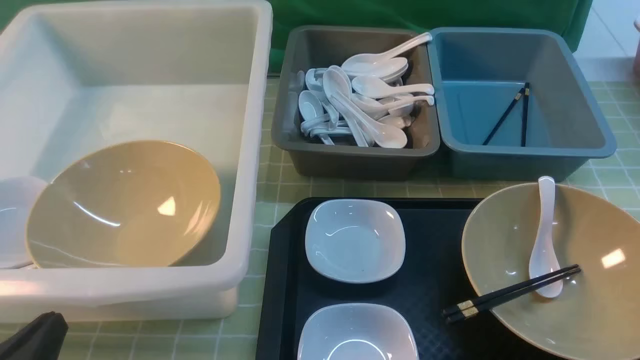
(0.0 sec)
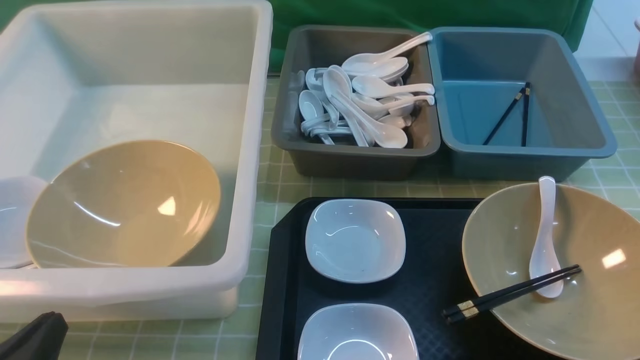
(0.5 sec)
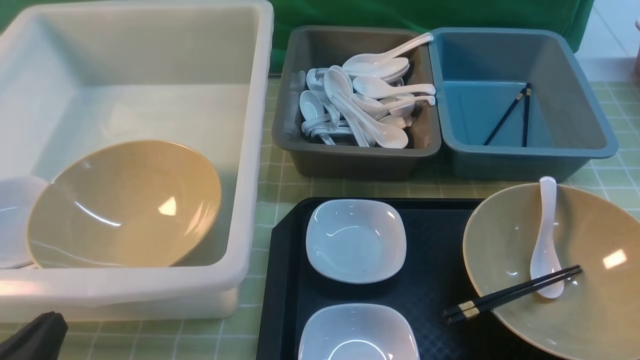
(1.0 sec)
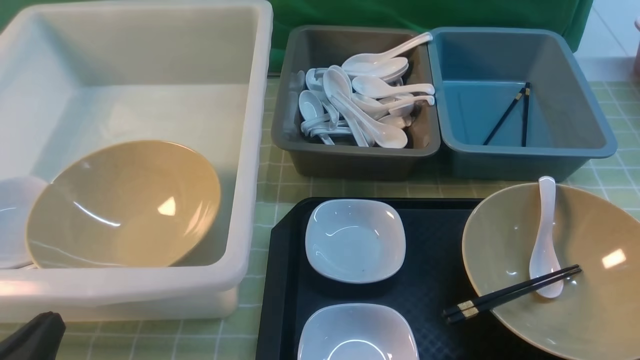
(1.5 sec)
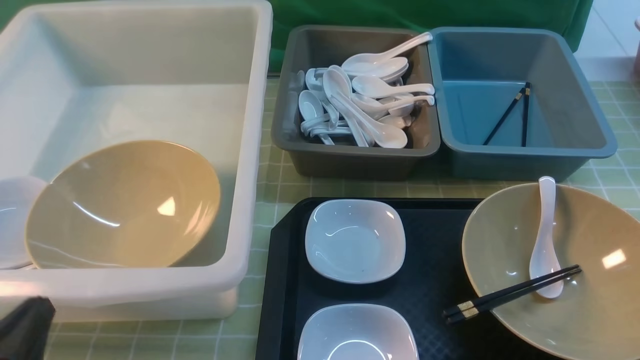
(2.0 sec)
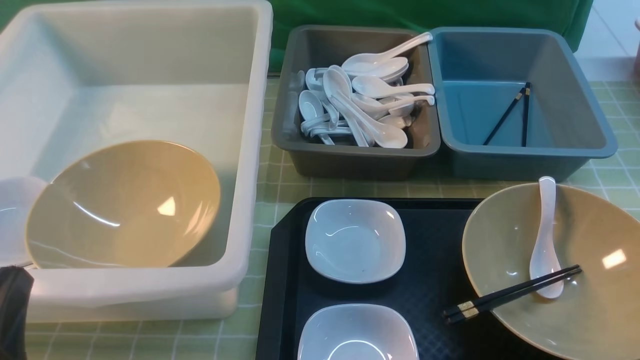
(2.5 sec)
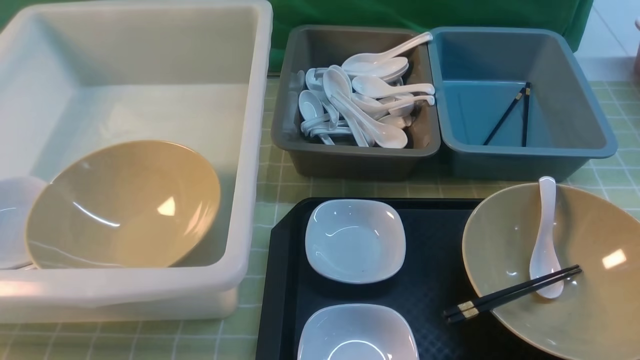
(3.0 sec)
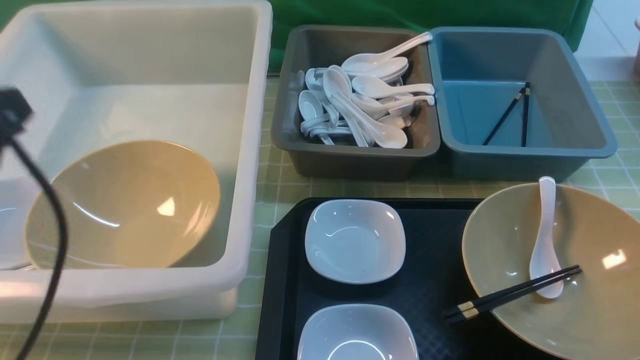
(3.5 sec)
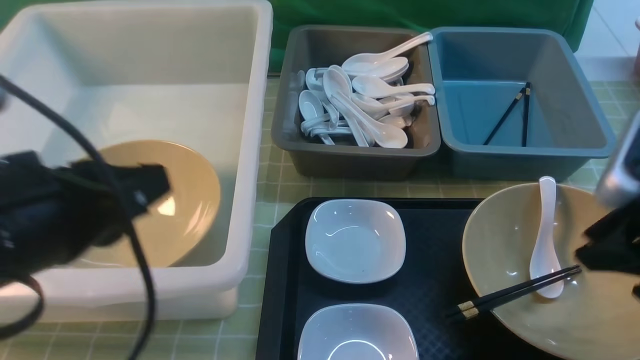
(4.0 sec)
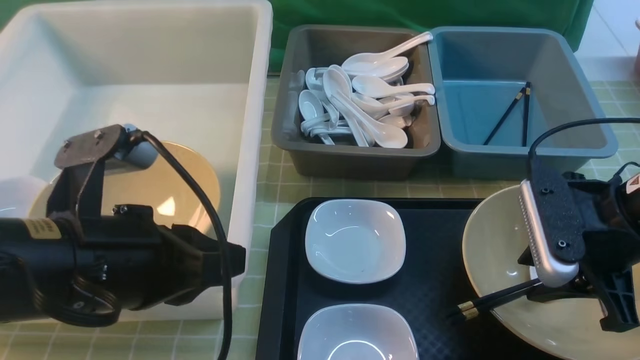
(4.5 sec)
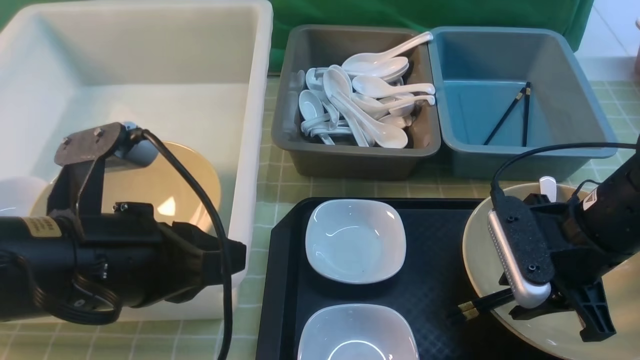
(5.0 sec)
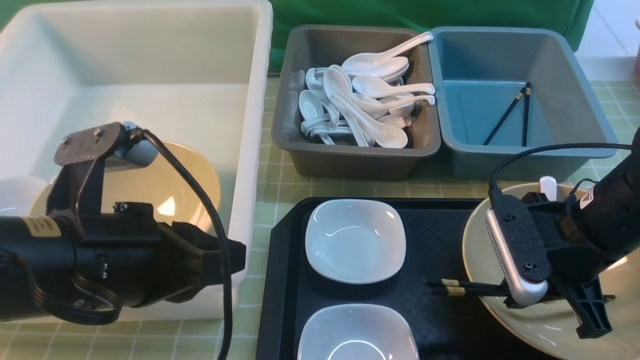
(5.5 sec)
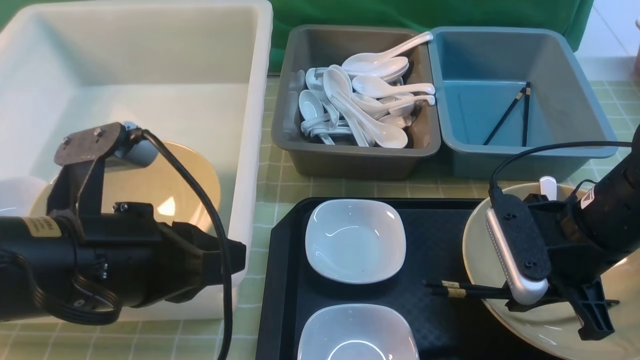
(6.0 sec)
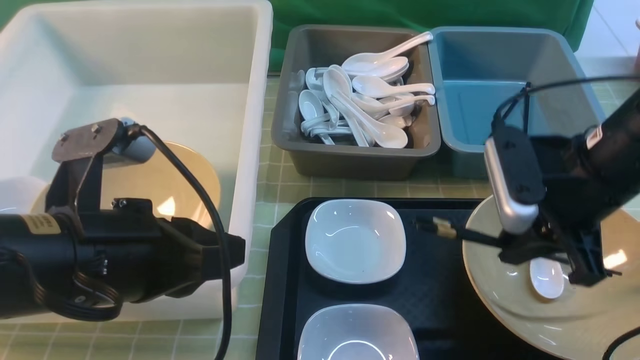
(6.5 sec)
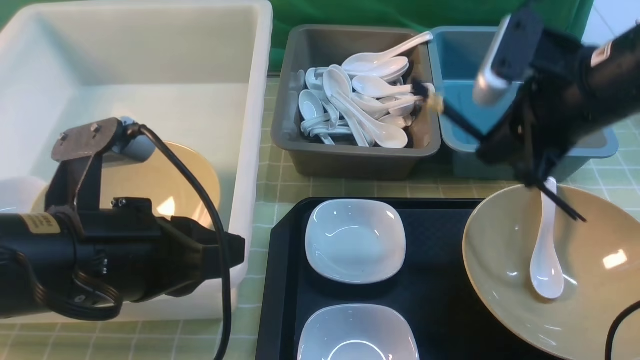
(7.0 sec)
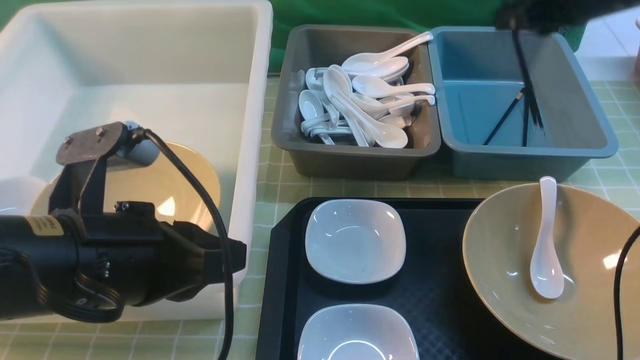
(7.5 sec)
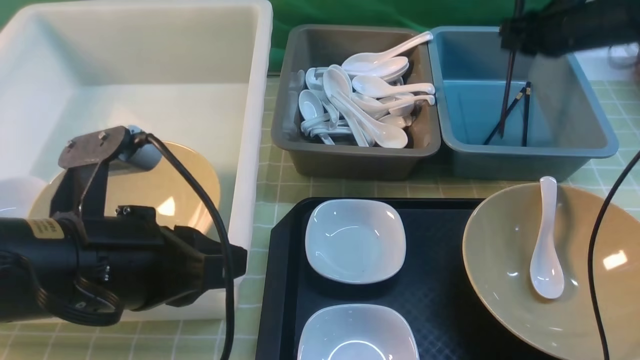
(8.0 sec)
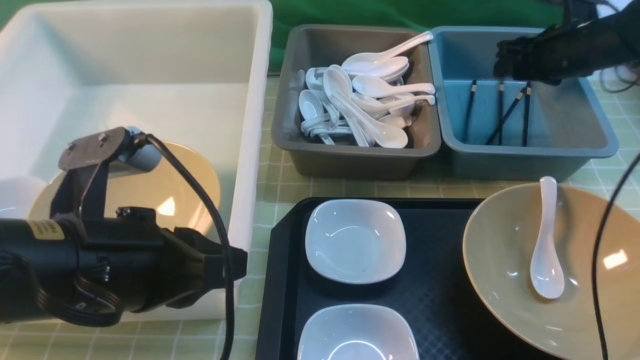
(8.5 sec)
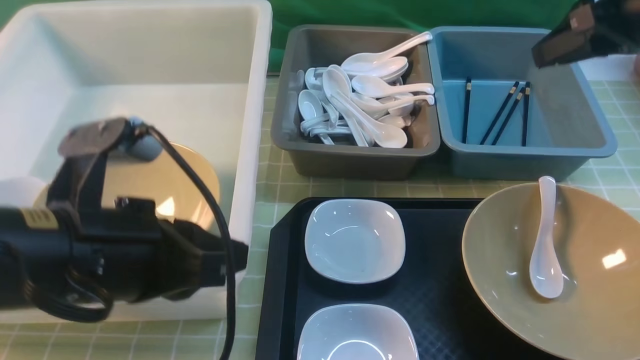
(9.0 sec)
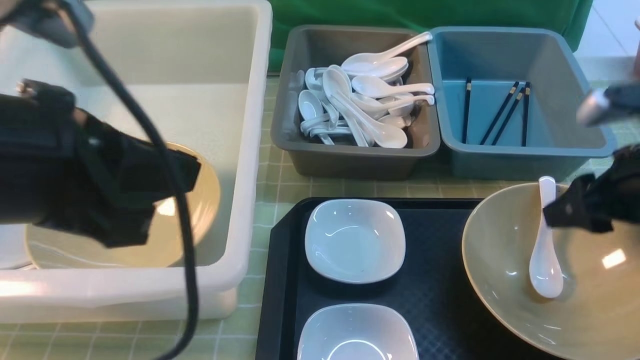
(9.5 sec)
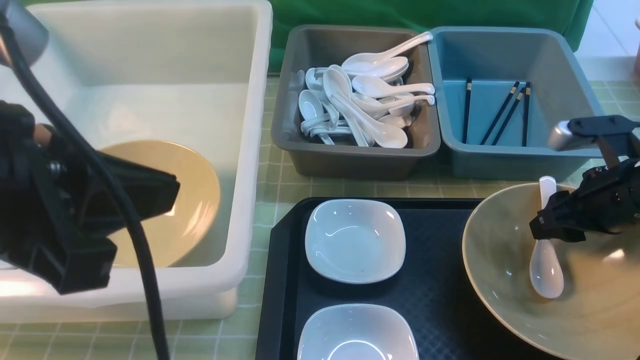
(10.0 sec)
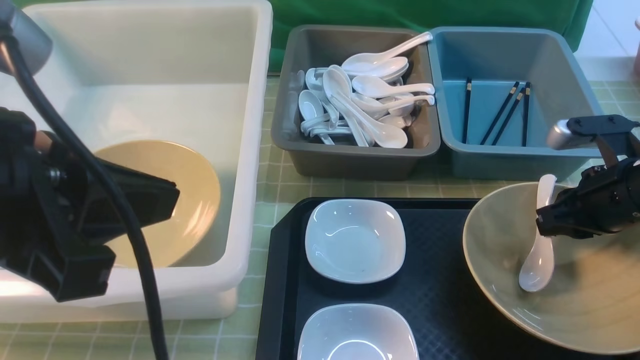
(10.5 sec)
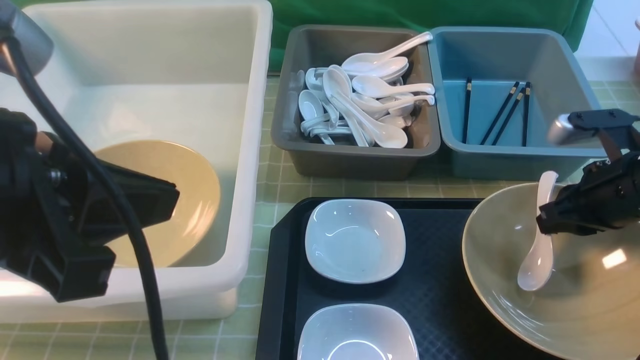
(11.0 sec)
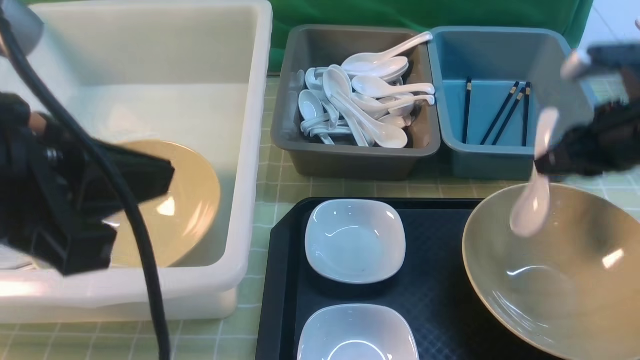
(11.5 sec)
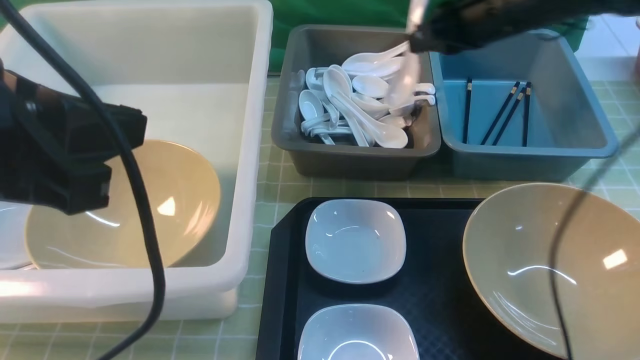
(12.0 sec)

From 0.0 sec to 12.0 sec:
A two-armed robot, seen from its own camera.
Task of the whole recording: on green table put chopsticks spoon bowls plates into blue grey white boxes.
Step, from 0.0 sec to 6.0 sec: use the right arm to grab the chopsticks.
Step, from 7.0 sec to 8.5 sec: use the right arm to put the chopsticks into the small storage box on the right.
Step, from 9.0 sec to 11.0 sec: use the right arm to grab the soup spoon in the middle.
From 2.0 sec to 4.0 sec: The right gripper heads forward and upward, covering about 20 cm; the left gripper is displaced upward and forward by about 15 cm.
From 4.0 sec to 6.0 sec: The left gripper moves about 5 cm. Meanwhile the right gripper shifts approximately 10 cm downward and to the left.
From 6.0 sec to 8.0 sec: The right gripper heads forward, covering some 20 cm.
From 8.0 sec to 10.0 sec: The right gripper is displaced backward and downward by roughly 20 cm, and opens up. The left gripper shifts roughly 10 cm upward.
From 10.0 sec to 12.0 sec: The right gripper goes some 20 cm forward, upward and to the left, and closes up.

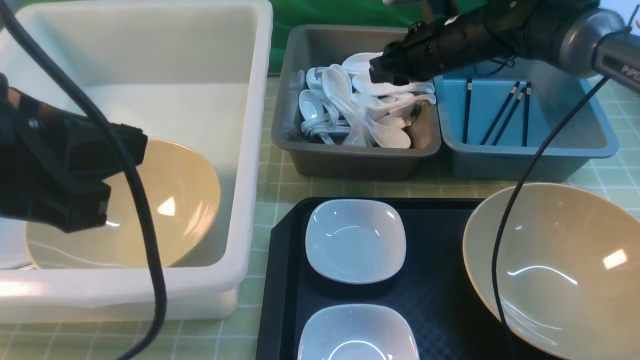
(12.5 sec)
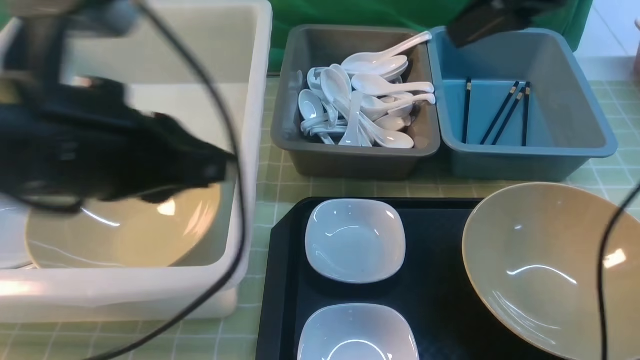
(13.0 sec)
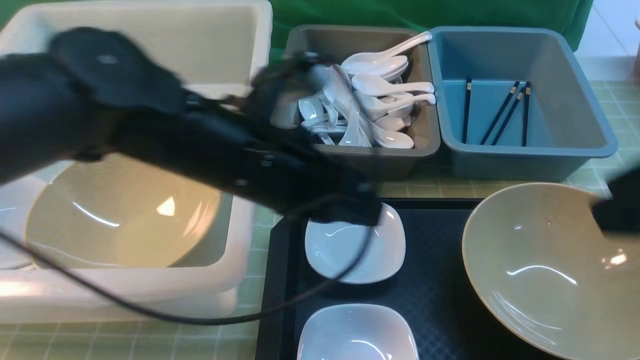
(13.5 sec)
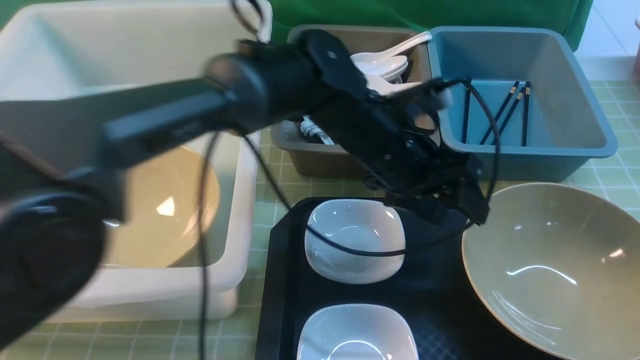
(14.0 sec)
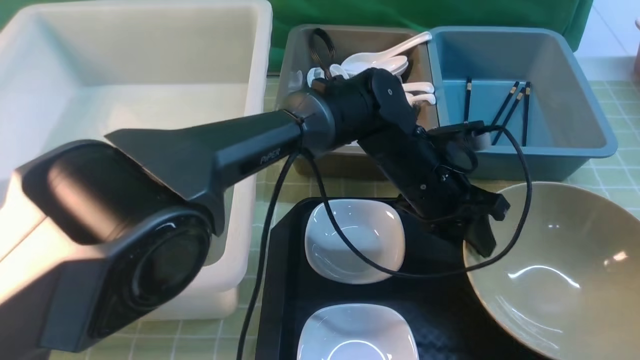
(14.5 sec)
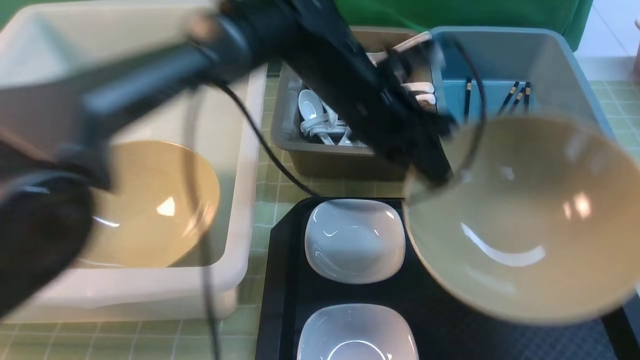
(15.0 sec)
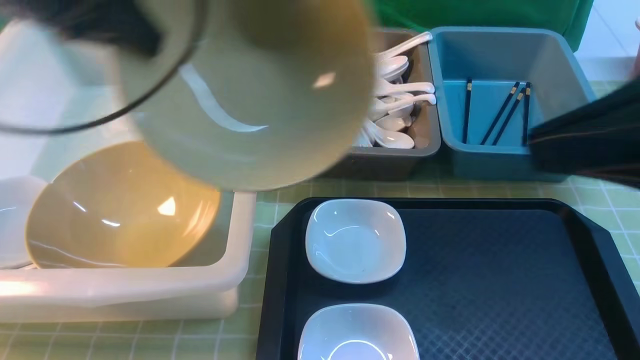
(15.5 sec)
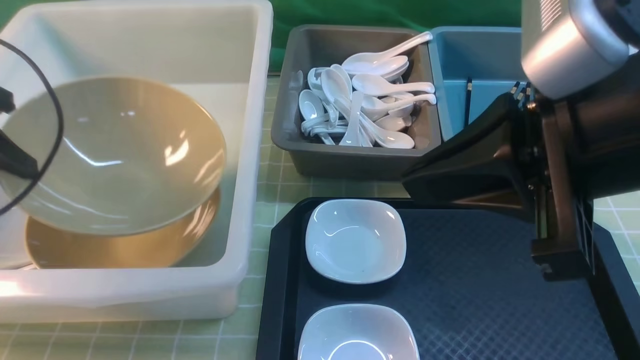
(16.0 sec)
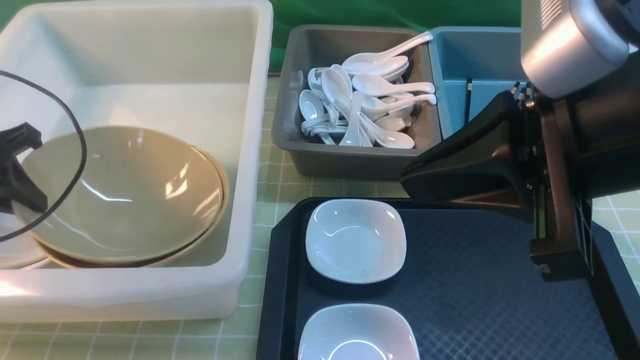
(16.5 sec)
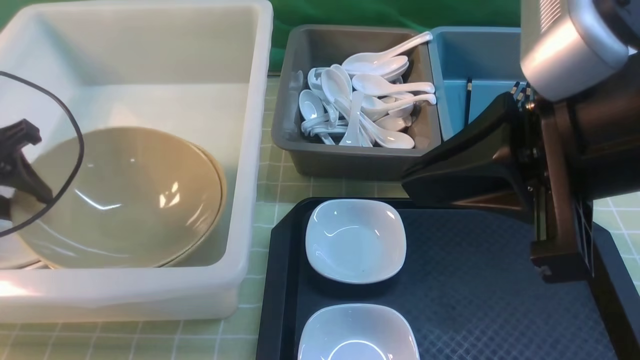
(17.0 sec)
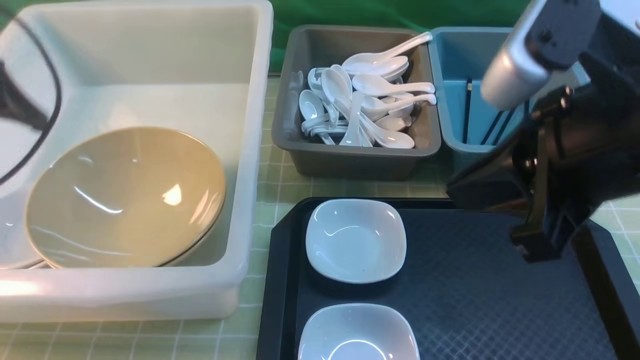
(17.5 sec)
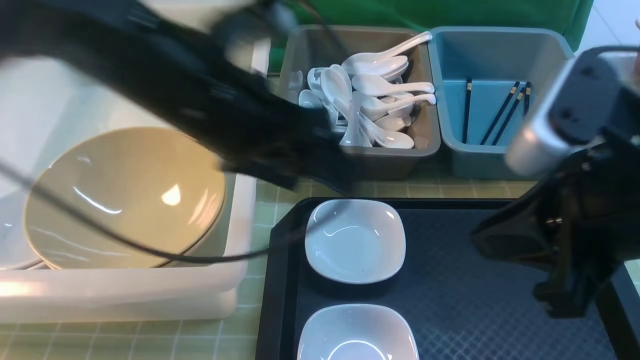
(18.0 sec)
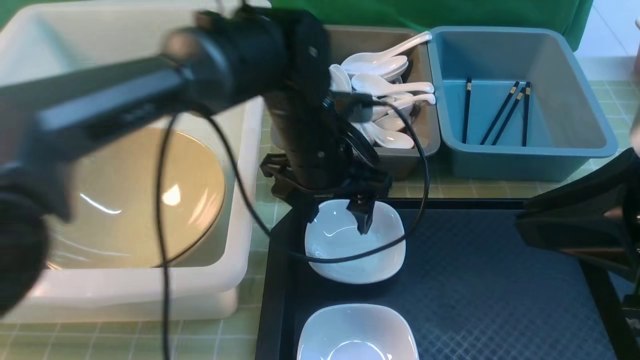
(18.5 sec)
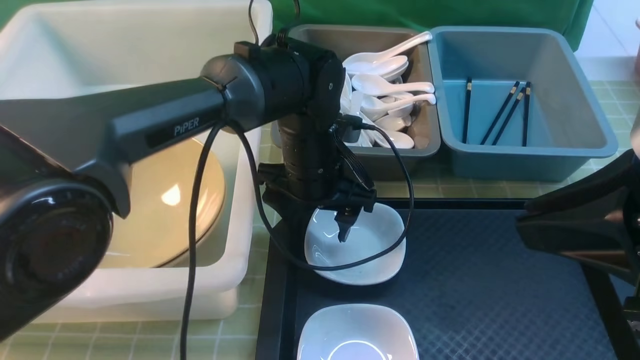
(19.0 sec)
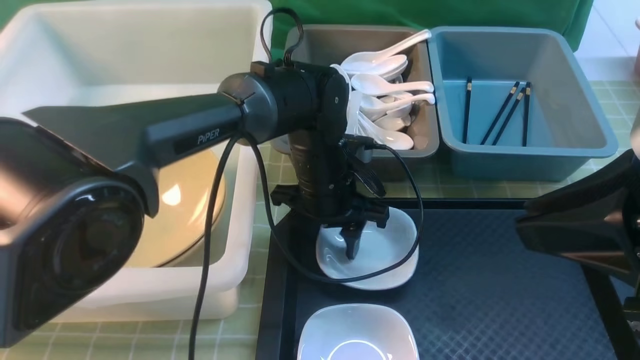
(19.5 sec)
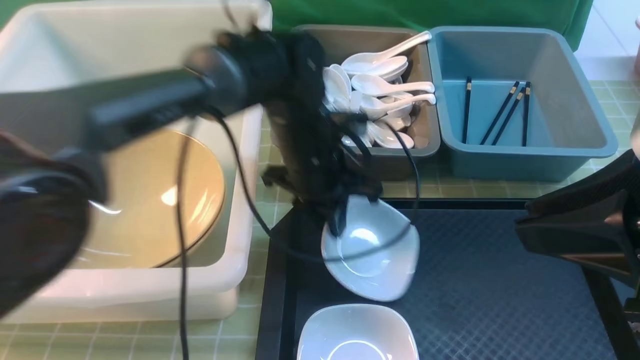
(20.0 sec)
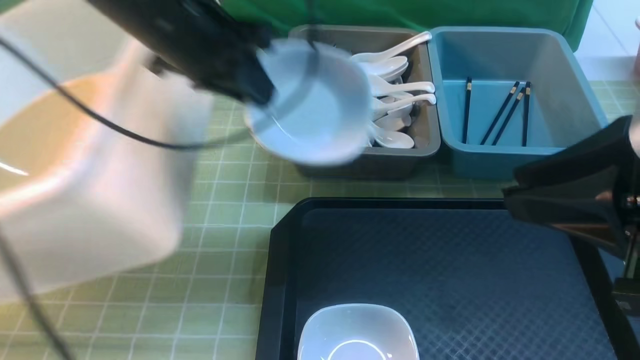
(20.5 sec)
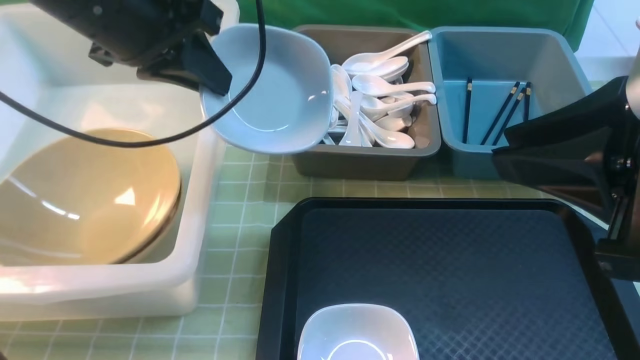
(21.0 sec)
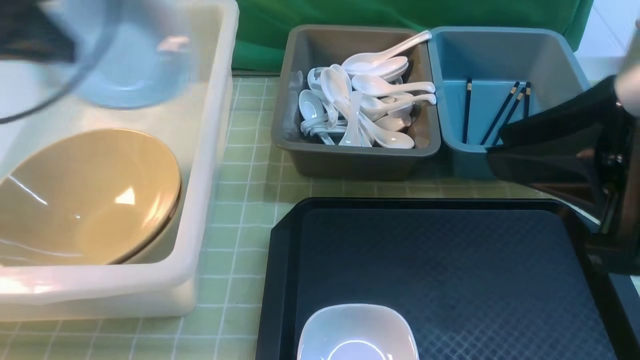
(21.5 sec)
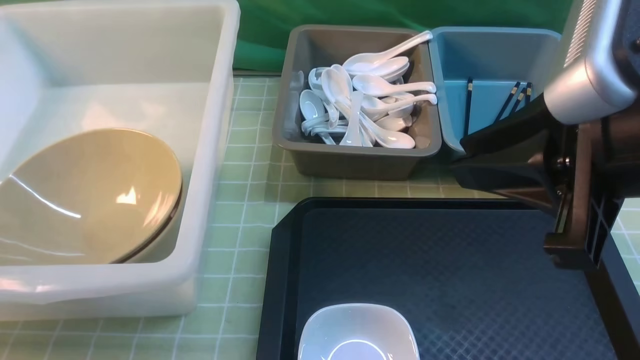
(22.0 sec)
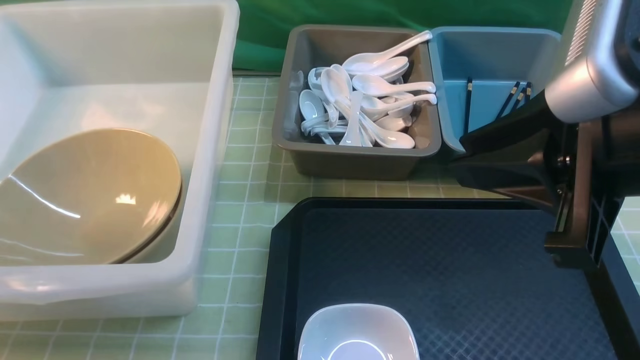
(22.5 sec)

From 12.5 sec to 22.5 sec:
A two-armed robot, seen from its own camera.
Task of the whole recording: on green table put chopsticks spoon bowls plates into blue grey white boxes.
Step, from 13.5 sec to 14.5 sec: use the left arm to grab the yellow noodle bowl on the left.
Step, from 15.5 sec to 17.0 sec: use the left arm to put the noodle bowl into the large storage box on the left.
Step, from 17.5 sec to 20.0 sec: use the left arm to grab the plate.
From 12.5 sec to 14.5 sec: The right gripper shifts some 40 cm backward, and opens its fingers. Meanwhile the left gripper heads to the right, downward and forward, covering some 40 cm, and opens.
From 14.5 sec to 16.5 sec: The left gripper goes roughly 50 cm to the left, and closes. The right gripper shifts approximately 15 cm to the left and forward, and closes.
From 16.5 sec to 18.5 sec: The left gripper goes approximately 35 cm to the right, and opens up; the right gripper ends up some 5 cm from where it was.
From 18.5 sec to 20.5 sec: The left gripper goes about 15 cm to the left and upward, and closes.
From 20.5 sec to 22.5 sec: The left gripper is displaced to the left by some 35 cm.
